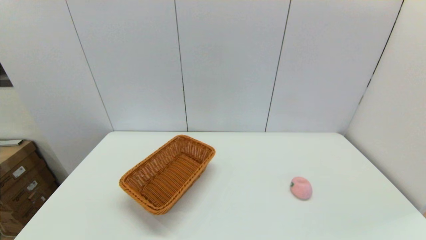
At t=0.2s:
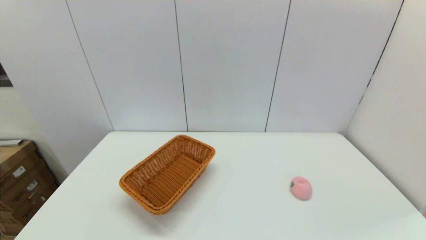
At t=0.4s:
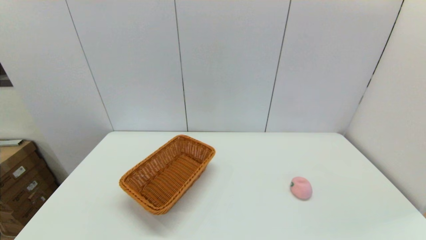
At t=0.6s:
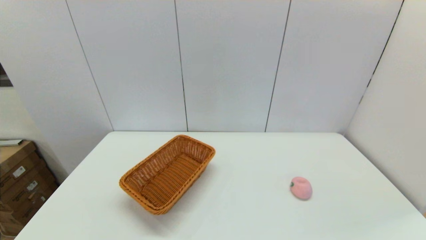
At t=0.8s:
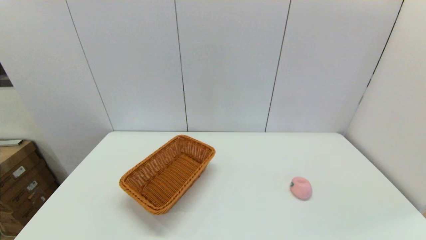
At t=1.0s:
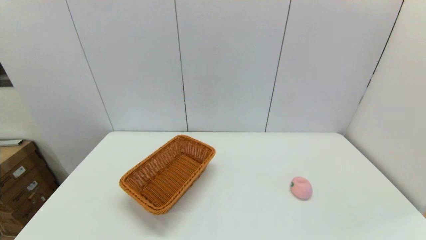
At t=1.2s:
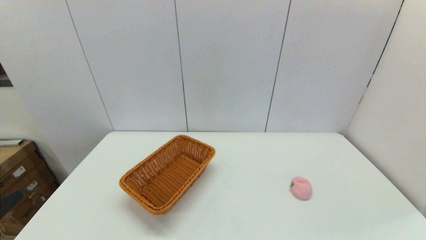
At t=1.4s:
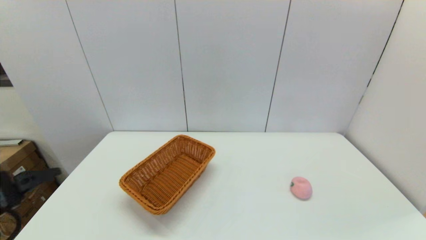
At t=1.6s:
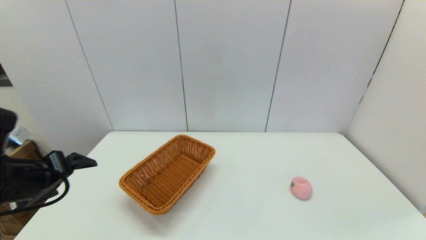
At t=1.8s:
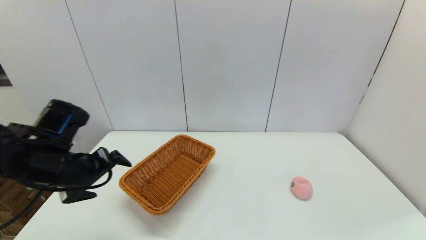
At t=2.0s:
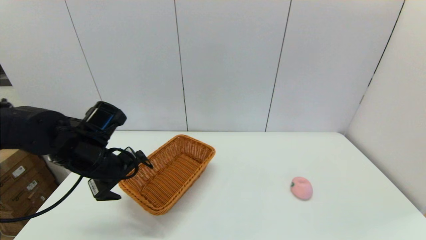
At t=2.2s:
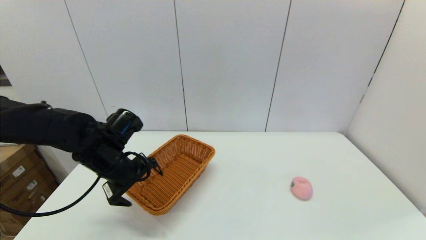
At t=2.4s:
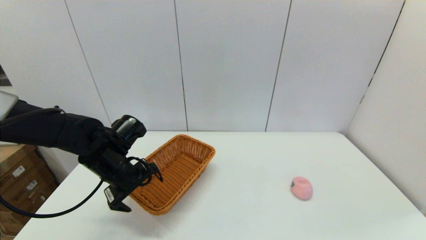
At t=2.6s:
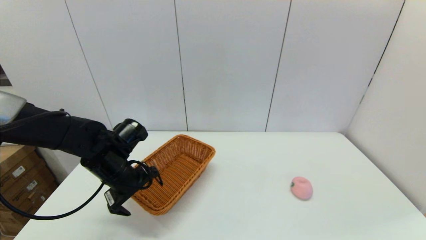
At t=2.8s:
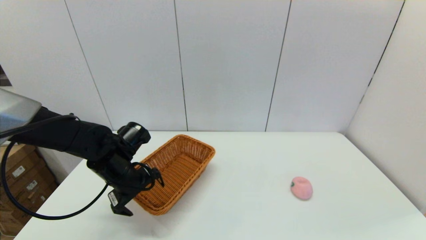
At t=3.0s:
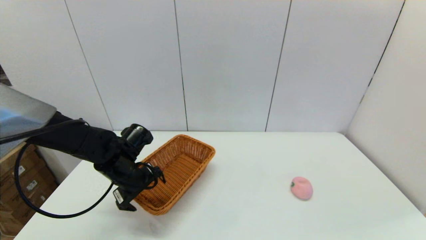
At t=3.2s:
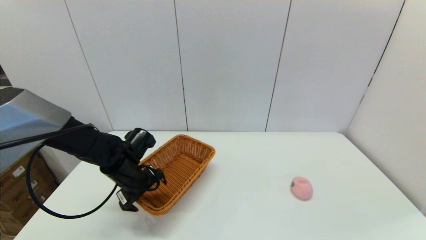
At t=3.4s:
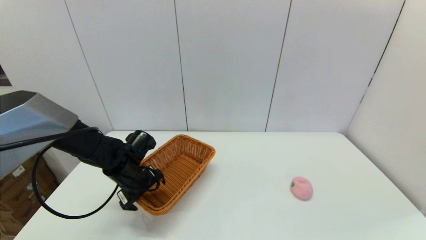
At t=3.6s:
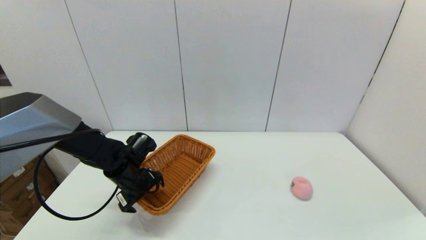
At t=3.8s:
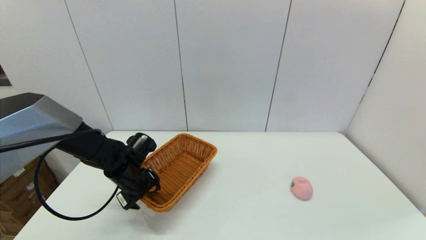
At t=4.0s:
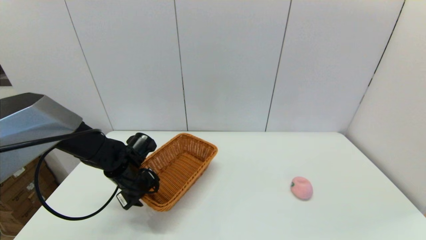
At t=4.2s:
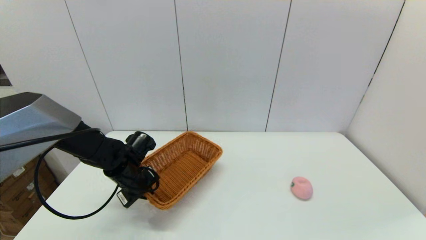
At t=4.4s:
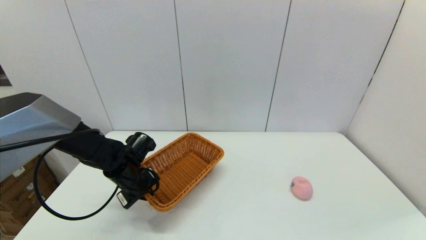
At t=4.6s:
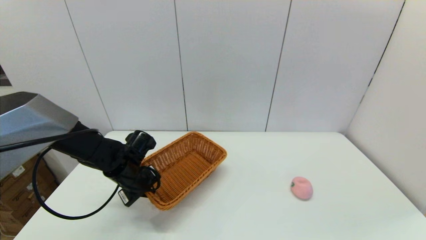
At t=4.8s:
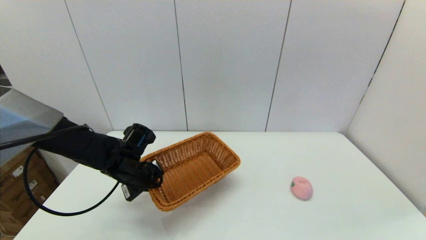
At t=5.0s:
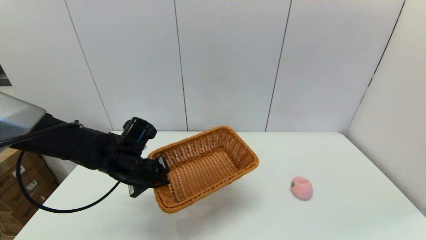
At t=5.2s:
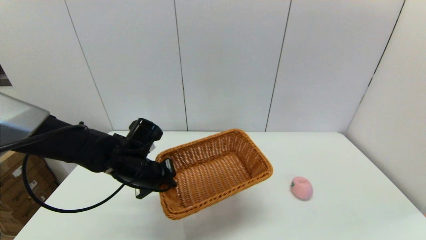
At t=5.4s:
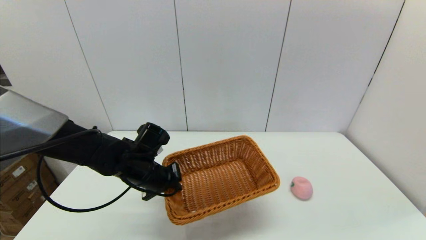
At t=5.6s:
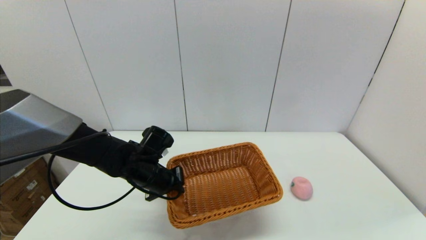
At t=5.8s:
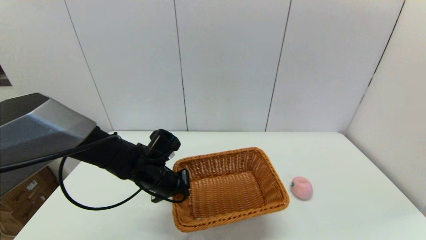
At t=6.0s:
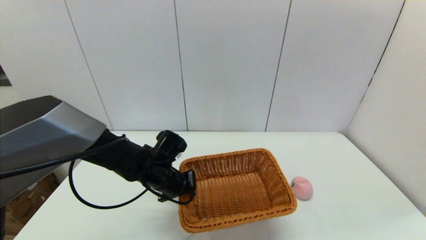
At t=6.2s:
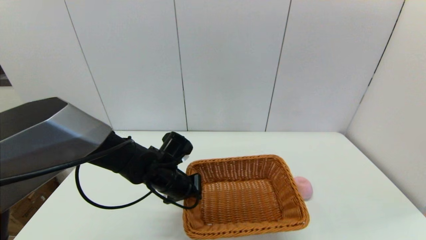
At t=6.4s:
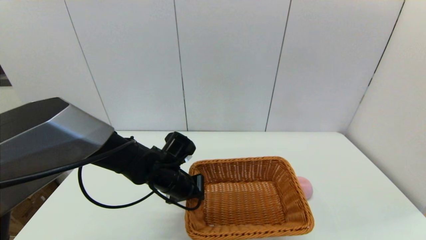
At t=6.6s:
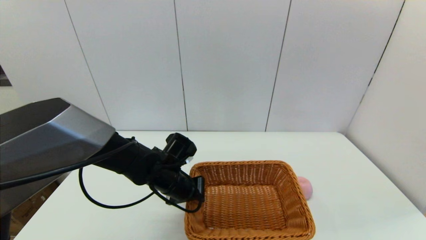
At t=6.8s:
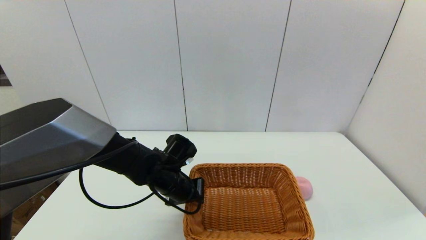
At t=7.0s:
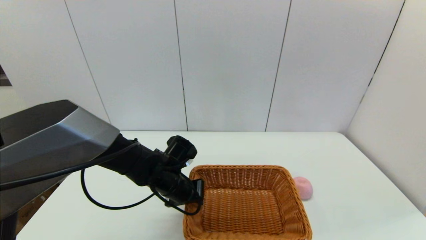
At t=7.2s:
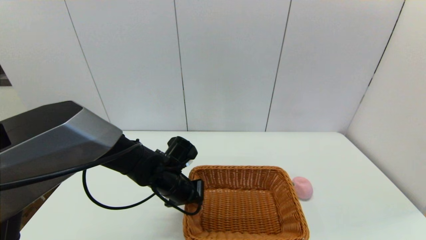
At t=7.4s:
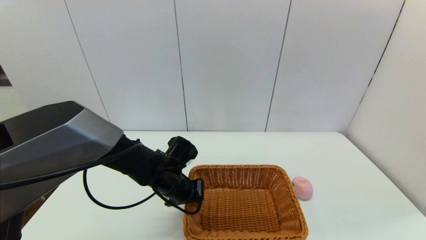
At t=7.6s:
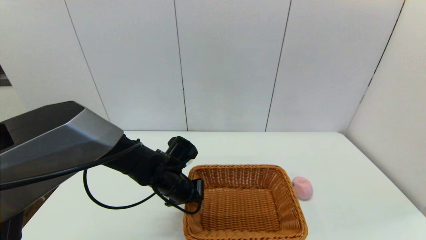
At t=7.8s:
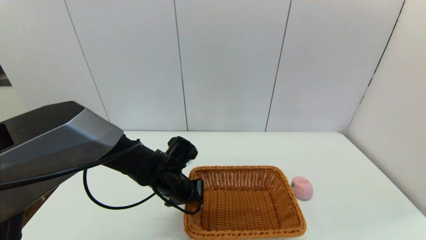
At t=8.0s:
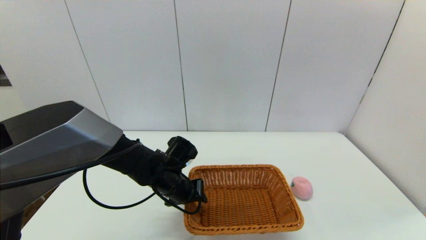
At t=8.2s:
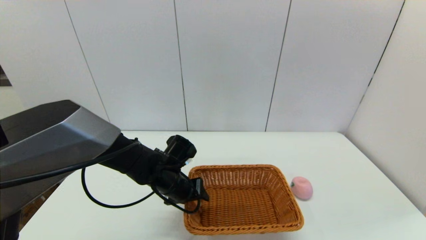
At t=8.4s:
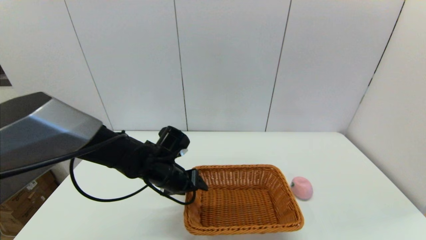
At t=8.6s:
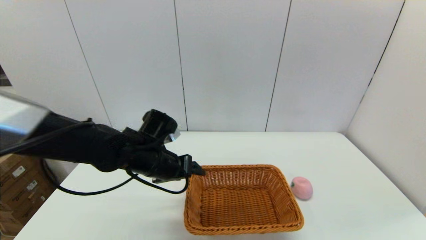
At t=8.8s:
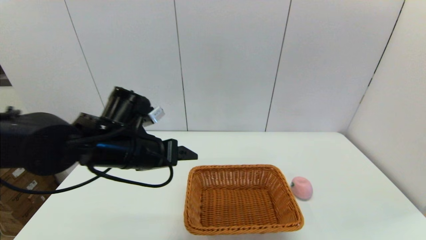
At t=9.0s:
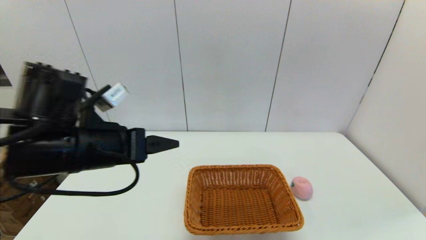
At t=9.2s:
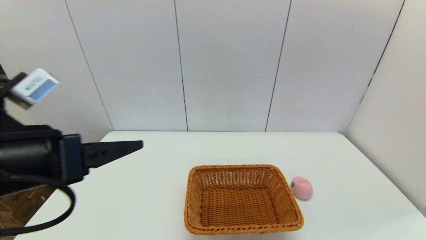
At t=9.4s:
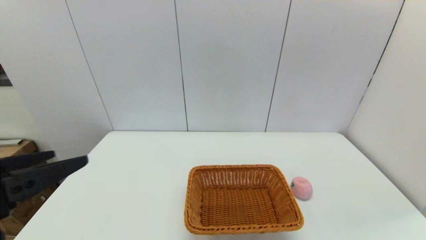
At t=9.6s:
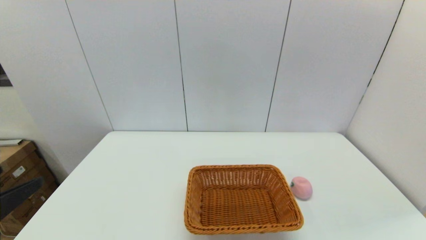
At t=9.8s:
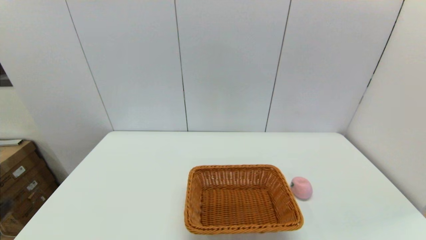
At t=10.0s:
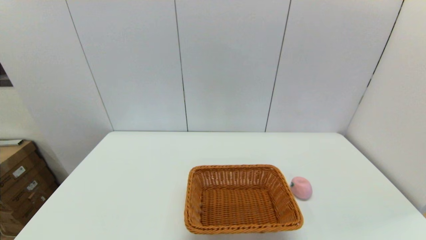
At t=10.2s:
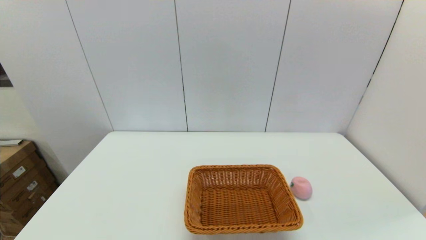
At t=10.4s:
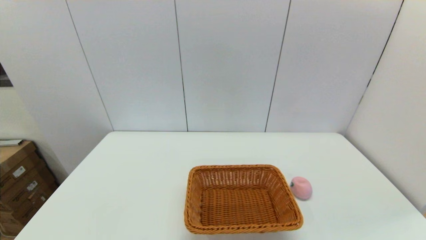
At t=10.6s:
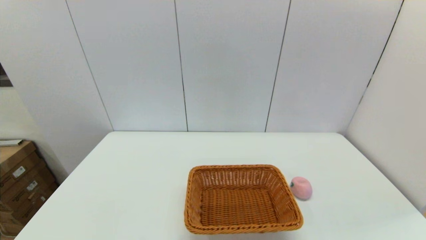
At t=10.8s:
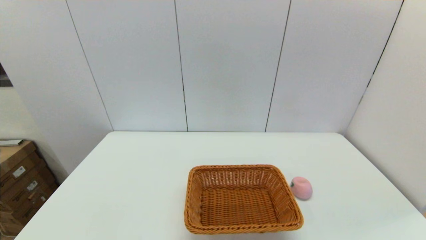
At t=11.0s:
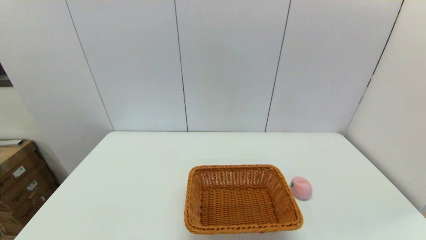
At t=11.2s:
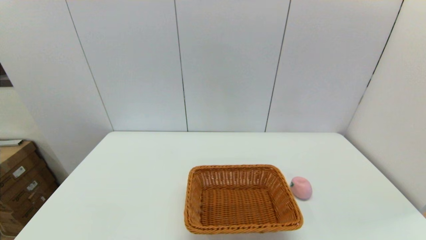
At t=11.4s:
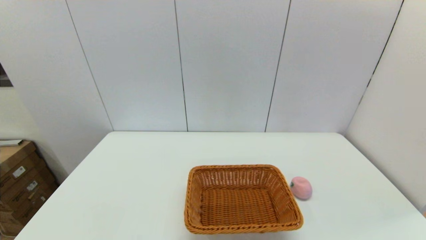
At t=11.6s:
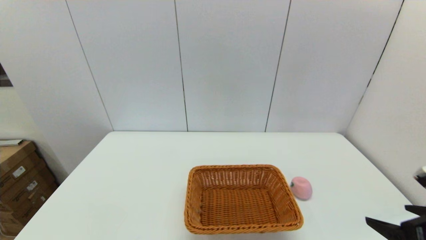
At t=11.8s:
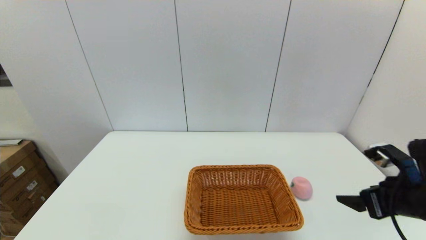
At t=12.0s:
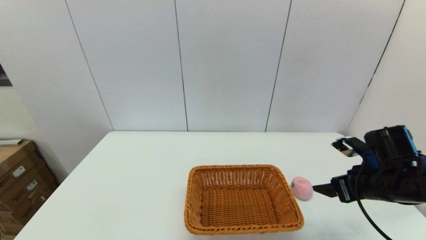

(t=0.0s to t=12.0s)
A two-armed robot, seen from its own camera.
Step, t=0.0s - t=4.2s: Grasp the light basket with the left gripper.
Step, t=4.4s - t=8.0s: Place the light basket on the middle of the table with the left gripper.
t=0.0s - t=1.6s: The left gripper shifts approximately 25 cm forward and upward.
t=1.6s - t=3.0s: The left gripper heads forward, downward and to the right, covering about 20 cm.
t=3.0s - t=4.4s: The left gripper closes up.
t=4.4s - t=6.0s: The left gripper shifts approximately 10 cm to the right.
t=6.0s - t=7.6s: The grippers make only small movements.
t=7.6s - t=9.0s: The left gripper goes roughly 25 cm upward, backward and to the left, and opens its fingers.
t=9.0s - t=10.4s: The left gripper travels backward, downward and to the left by some 30 cm.
t=10.4s - t=12.0s: The right gripper shifts some 25 cm forward.

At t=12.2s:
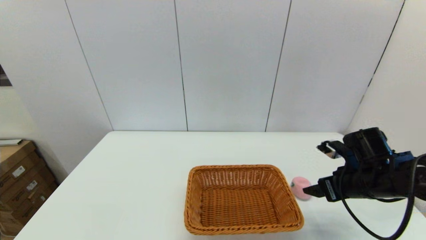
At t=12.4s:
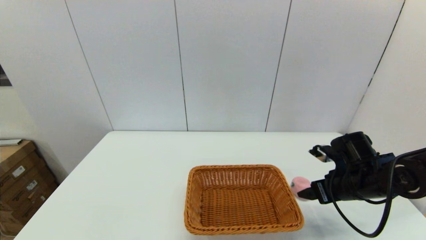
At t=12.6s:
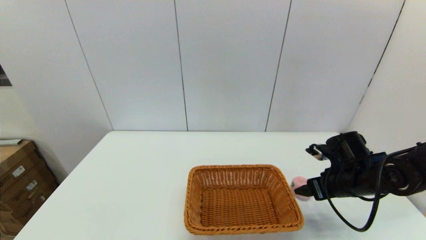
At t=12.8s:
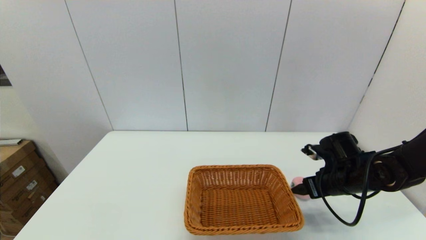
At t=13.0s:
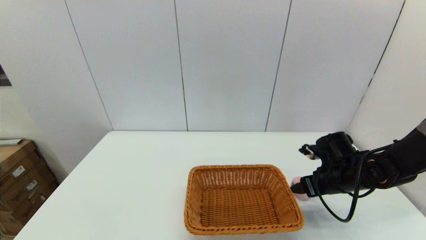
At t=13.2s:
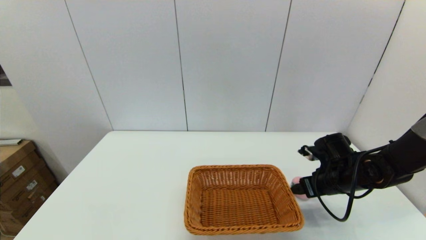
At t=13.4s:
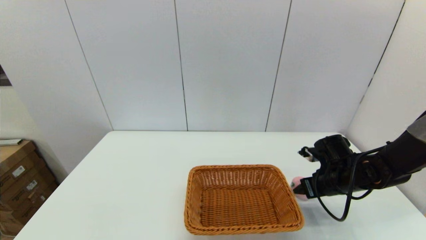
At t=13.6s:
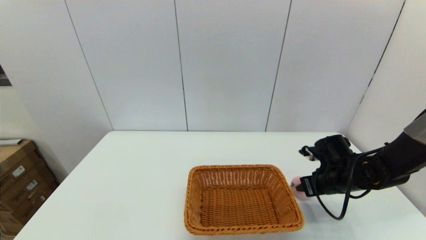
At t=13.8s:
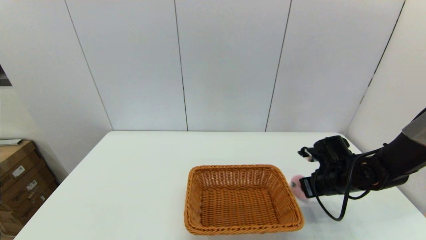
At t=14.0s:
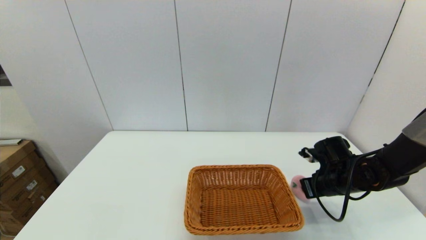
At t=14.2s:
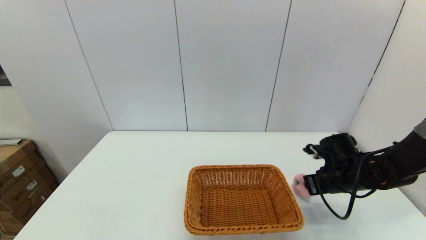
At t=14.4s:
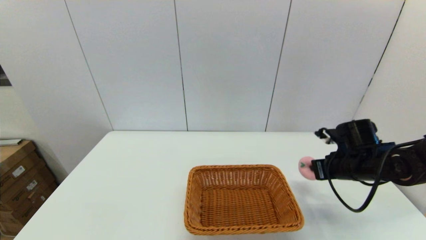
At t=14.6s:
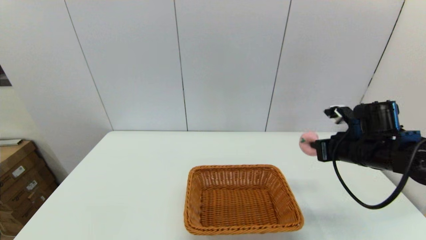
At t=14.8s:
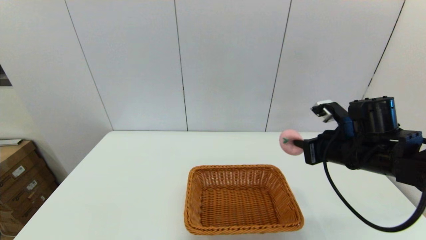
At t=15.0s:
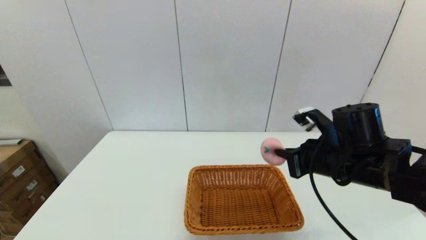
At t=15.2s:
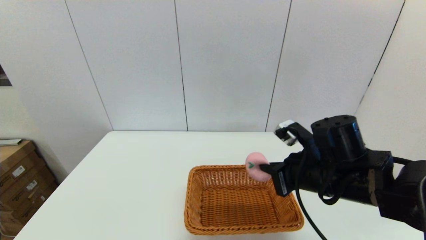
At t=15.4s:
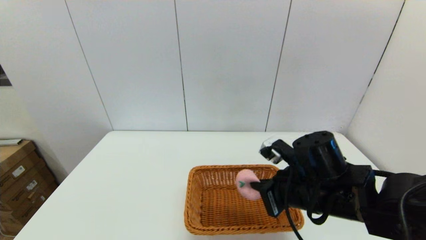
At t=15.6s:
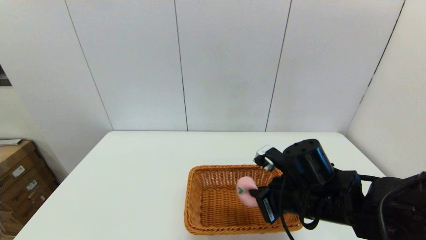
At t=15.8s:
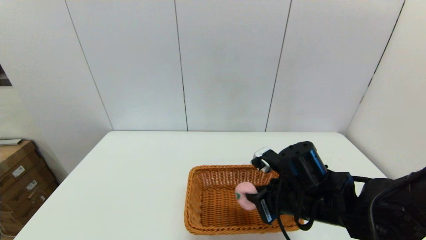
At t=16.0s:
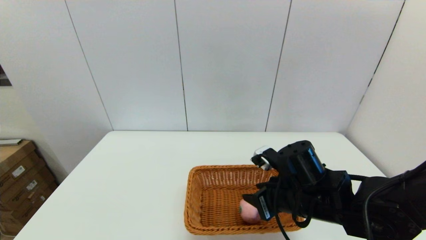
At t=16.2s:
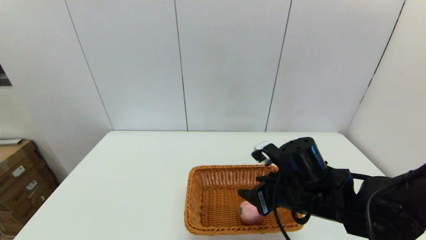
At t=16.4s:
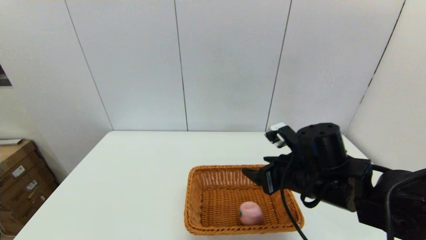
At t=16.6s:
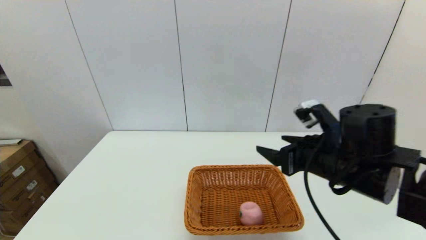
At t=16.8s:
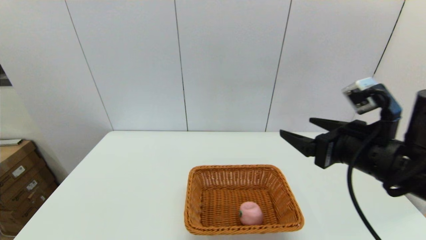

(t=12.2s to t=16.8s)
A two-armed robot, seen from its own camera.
Step, t=14.0s - t=15.8s: Place the peach into the light basket with the right gripper.
t=12.2s - t=13.8s: The right gripper travels downward and forward by approximately 10 cm, and closes.
t=13.8s - t=15.2s: The right gripper goes about 20 cm to the left, upward and backward.
t=15.2s - t=16.8s: The right gripper moves upward and to the right, approximately 10 cm, and opens its fingers.
